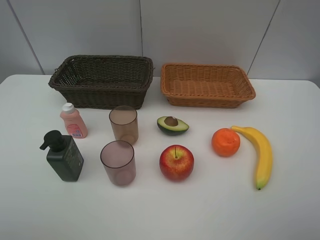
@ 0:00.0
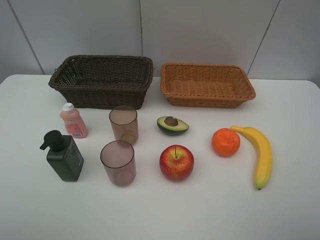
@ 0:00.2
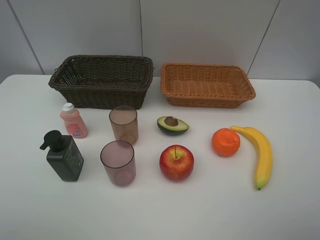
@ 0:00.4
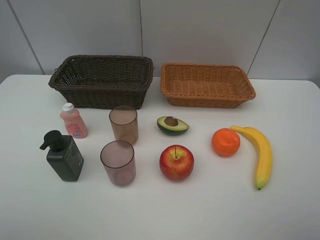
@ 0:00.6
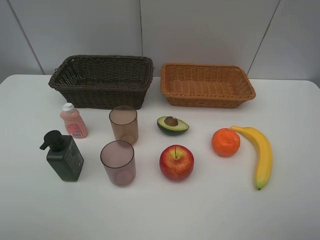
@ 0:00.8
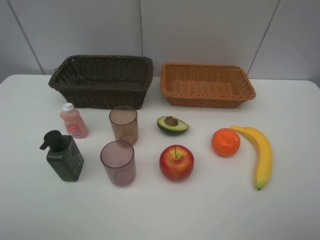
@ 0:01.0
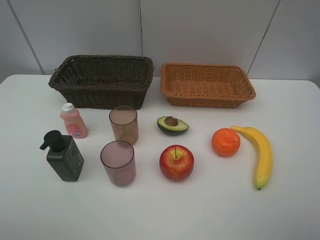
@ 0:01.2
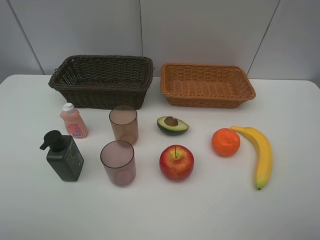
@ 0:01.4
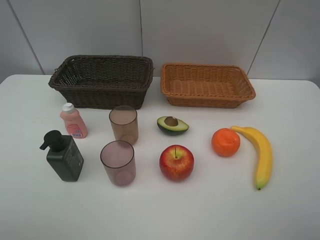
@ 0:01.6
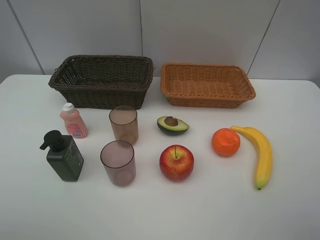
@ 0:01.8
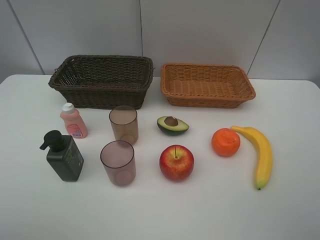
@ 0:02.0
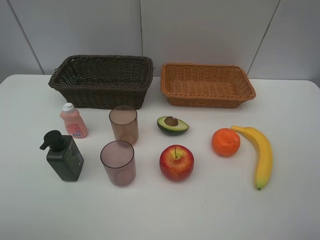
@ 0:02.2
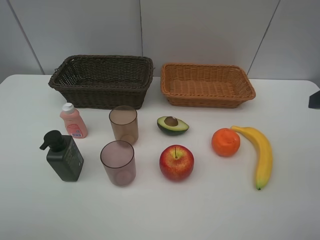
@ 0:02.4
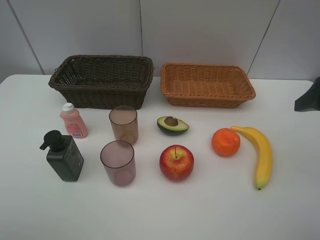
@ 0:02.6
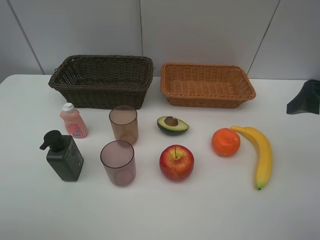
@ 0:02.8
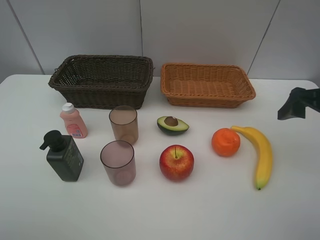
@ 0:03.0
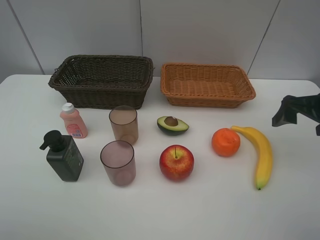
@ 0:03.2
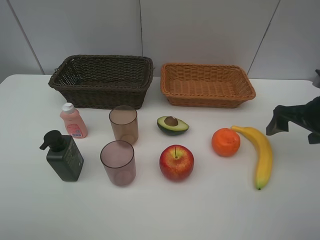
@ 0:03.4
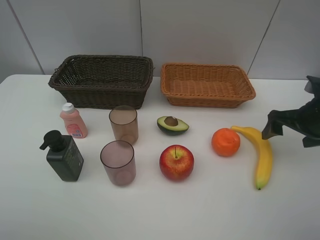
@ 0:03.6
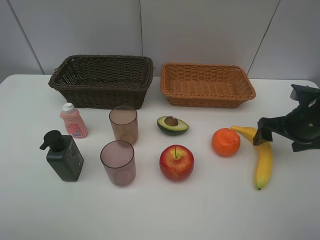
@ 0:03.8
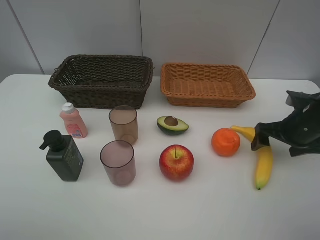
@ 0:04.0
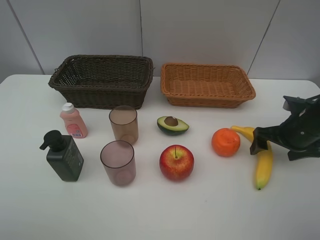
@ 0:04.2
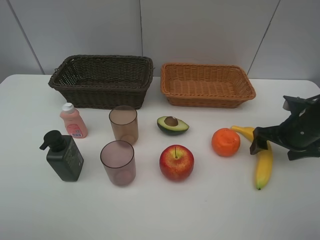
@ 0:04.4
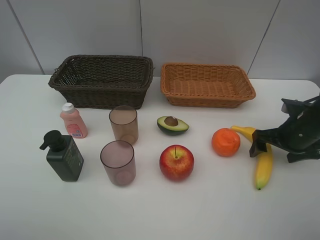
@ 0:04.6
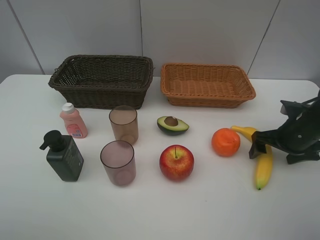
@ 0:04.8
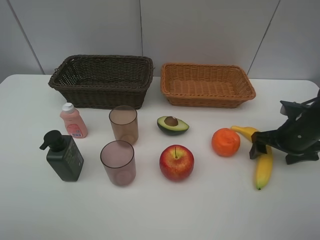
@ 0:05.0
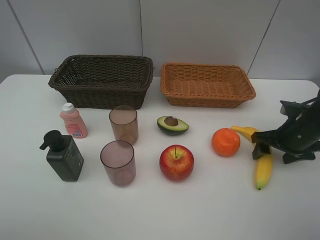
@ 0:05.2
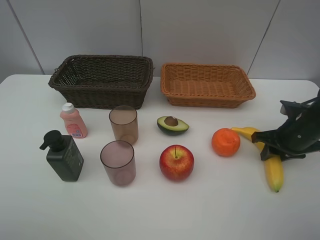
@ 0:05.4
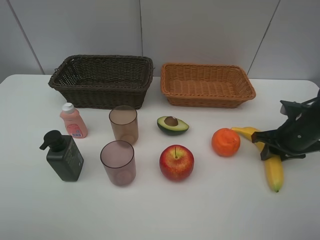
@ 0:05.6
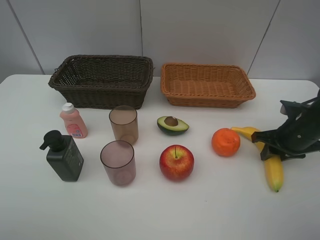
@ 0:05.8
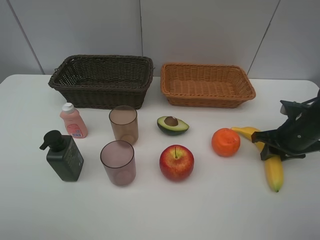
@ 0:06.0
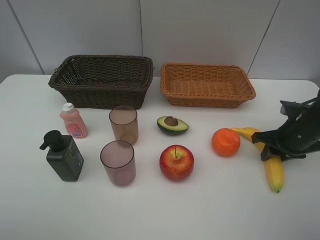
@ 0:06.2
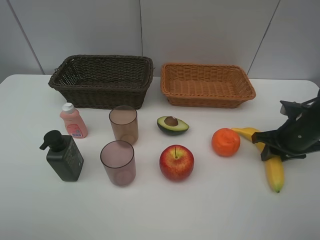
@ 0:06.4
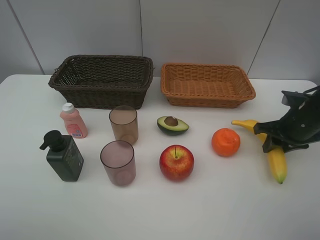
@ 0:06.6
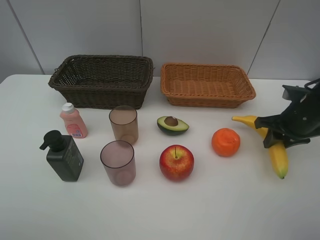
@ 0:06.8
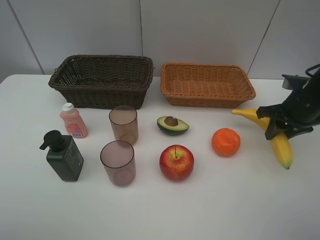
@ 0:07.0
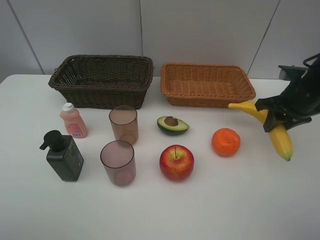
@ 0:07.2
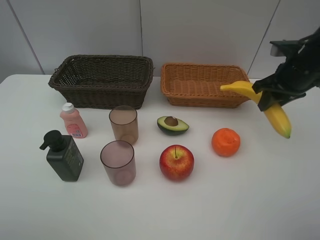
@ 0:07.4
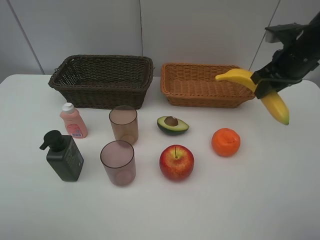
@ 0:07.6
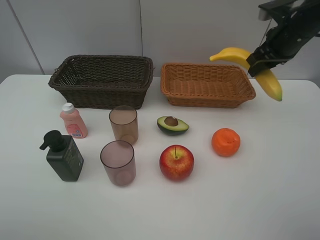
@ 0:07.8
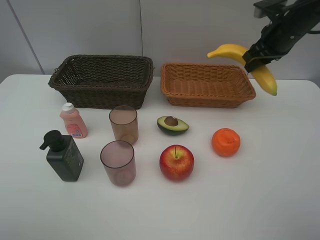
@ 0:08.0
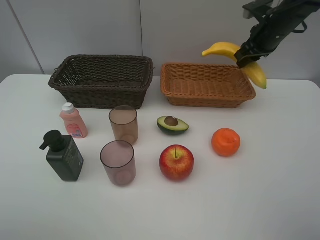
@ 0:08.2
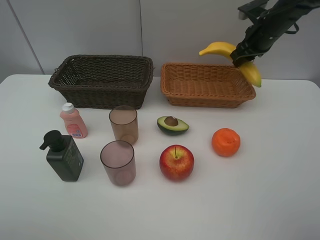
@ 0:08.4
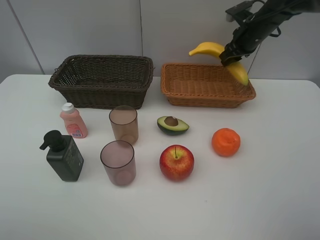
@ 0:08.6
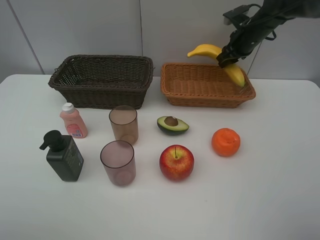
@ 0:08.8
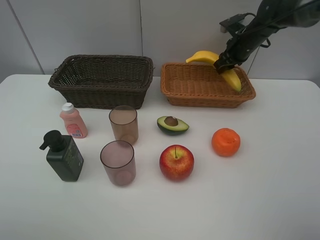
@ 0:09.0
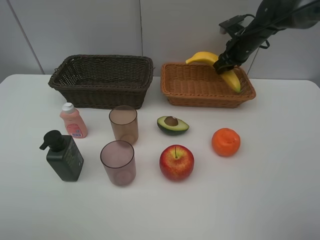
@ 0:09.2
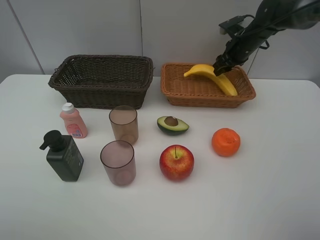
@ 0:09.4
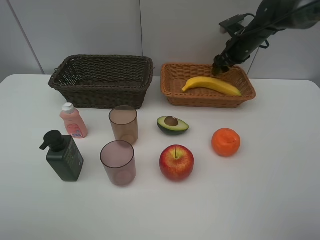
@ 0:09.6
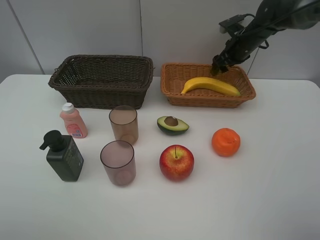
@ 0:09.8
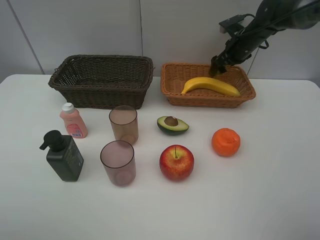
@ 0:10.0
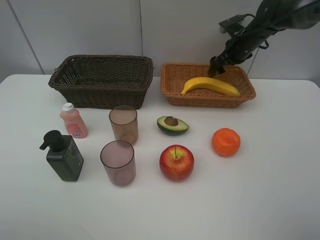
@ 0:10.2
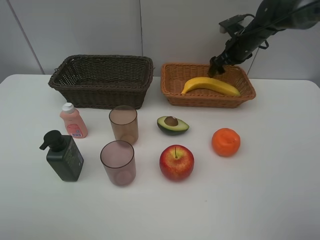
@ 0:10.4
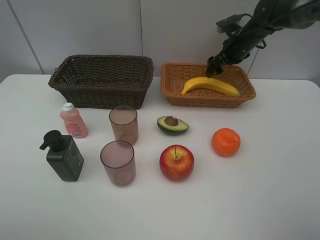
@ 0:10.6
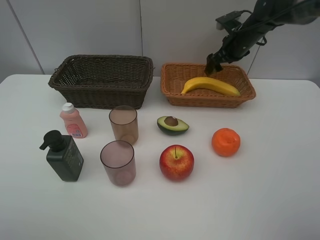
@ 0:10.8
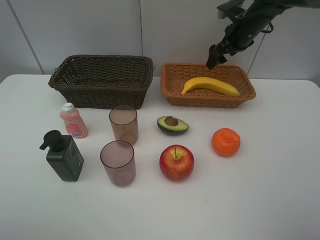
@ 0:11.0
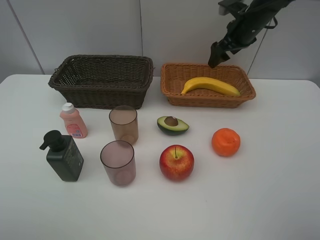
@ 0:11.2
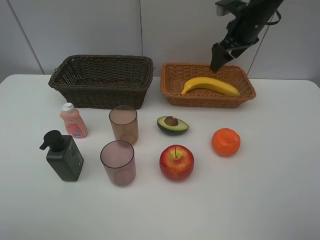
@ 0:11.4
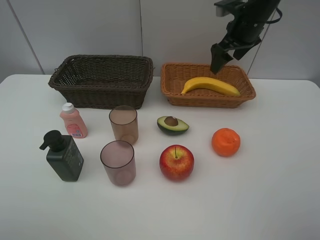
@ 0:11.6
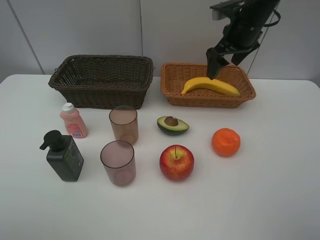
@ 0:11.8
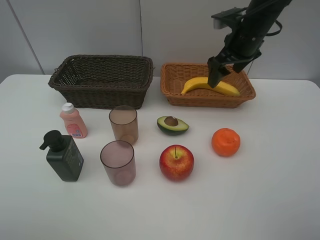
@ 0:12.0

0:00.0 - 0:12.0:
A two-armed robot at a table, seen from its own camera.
Task of the whole recording: Place multiple objects separately in different baskets.
Step, 0:00.0 - 0:06.6: Pick up banana with right gripper.
Step, 0:06.8 - 0:09.8: Place the banana in the light basket with right gripper.
0:01.6 - 0:03.0: The right gripper heads forward, covering some 20 cm.
0:03.0 - 0:04.4: The right gripper moves downward, approximately 10 cm.
0:04.4 - 0:06.0: The right gripper closes up.
0:06.0 - 0:07.6: The right gripper shifts approximately 15 cm upward and forward.
0:07.6 - 0:09.0: The right gripper moves forward, approximately 15 cm.
0:09.0 - 0:10.4: The right gripper opens its fingers.
0:10.4 - 0:12.0: The right gripper shifts about 10 cm backward and upward.

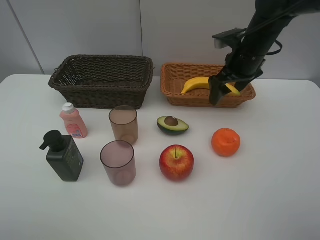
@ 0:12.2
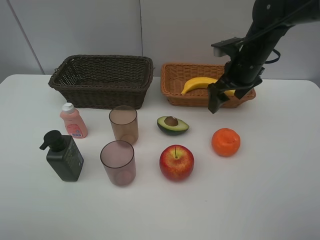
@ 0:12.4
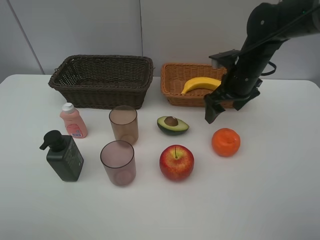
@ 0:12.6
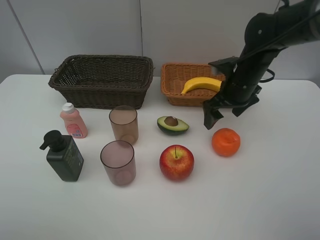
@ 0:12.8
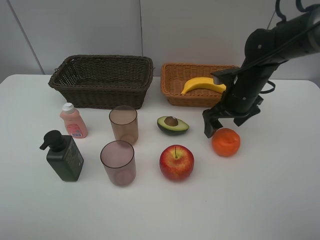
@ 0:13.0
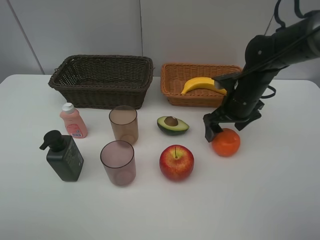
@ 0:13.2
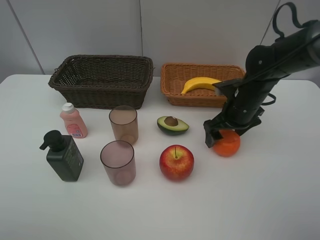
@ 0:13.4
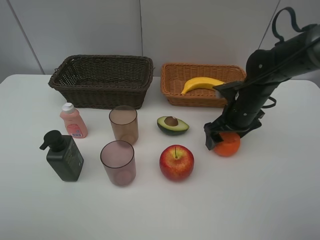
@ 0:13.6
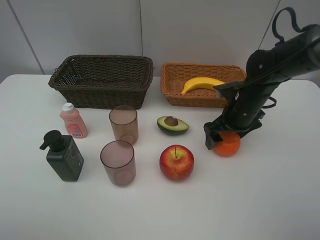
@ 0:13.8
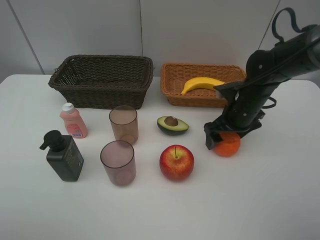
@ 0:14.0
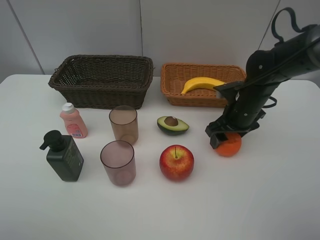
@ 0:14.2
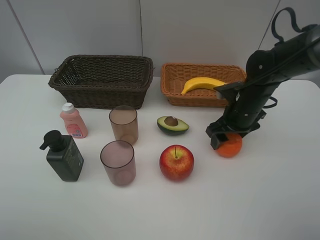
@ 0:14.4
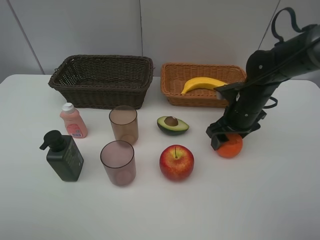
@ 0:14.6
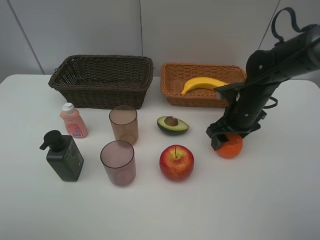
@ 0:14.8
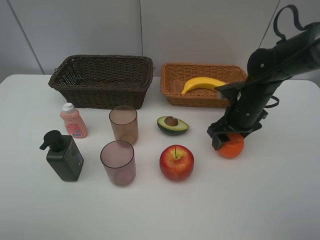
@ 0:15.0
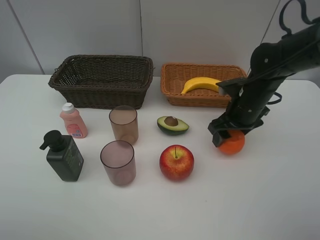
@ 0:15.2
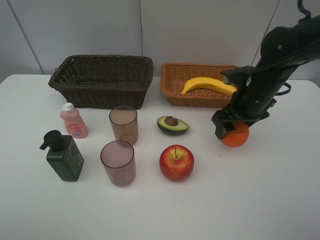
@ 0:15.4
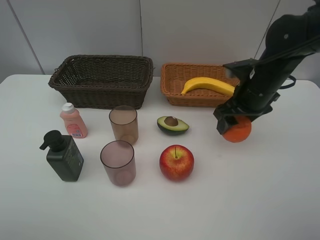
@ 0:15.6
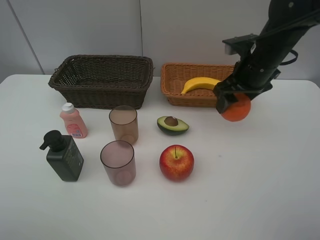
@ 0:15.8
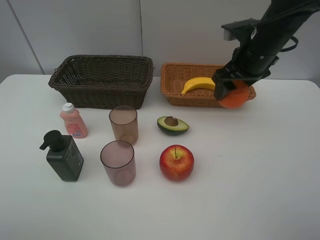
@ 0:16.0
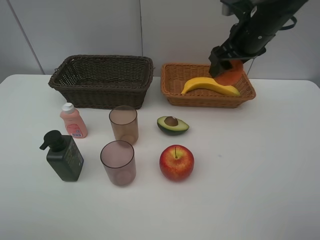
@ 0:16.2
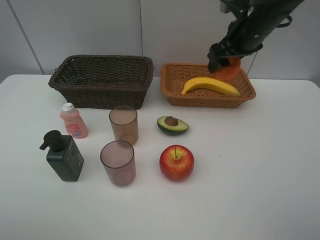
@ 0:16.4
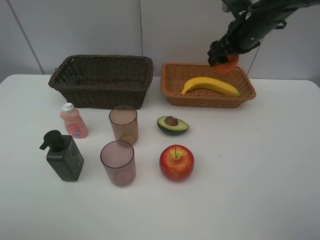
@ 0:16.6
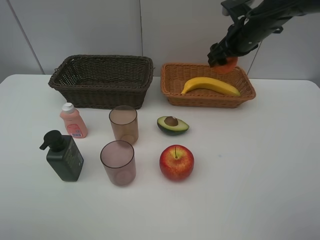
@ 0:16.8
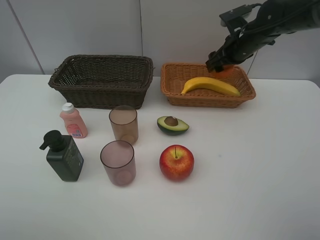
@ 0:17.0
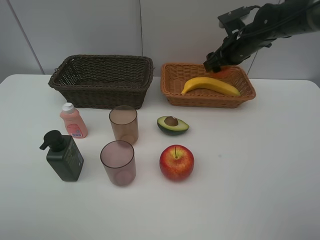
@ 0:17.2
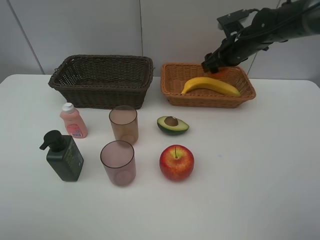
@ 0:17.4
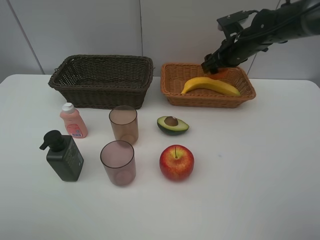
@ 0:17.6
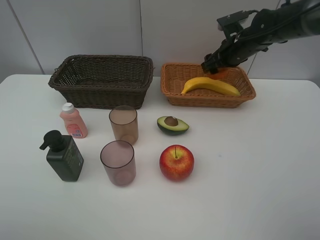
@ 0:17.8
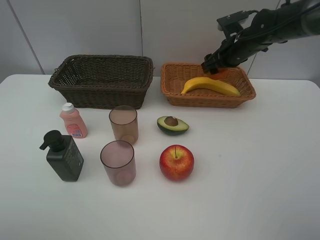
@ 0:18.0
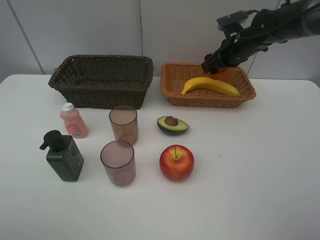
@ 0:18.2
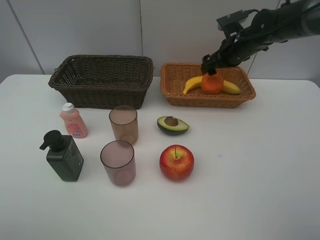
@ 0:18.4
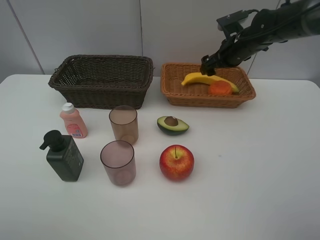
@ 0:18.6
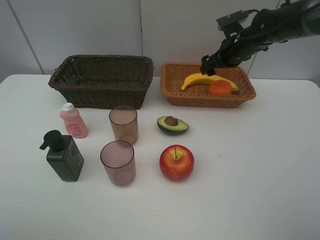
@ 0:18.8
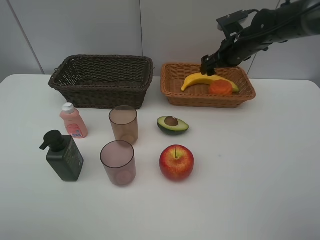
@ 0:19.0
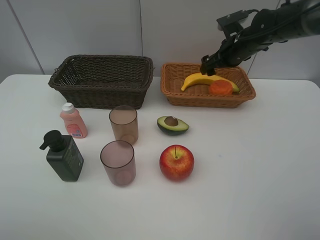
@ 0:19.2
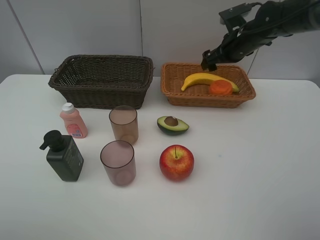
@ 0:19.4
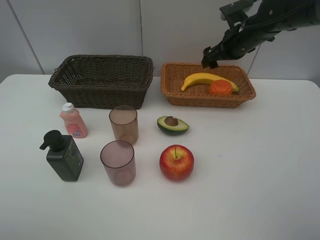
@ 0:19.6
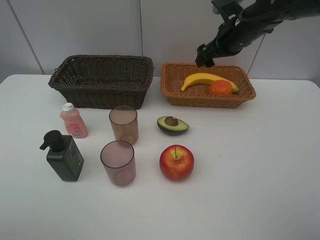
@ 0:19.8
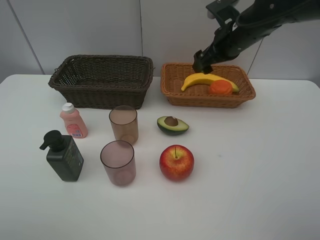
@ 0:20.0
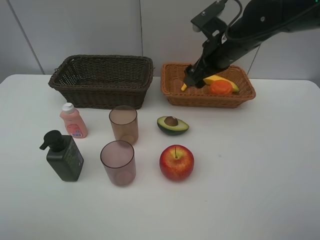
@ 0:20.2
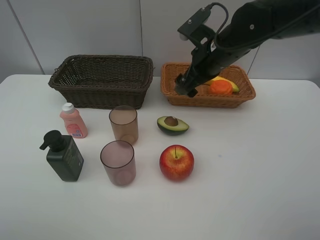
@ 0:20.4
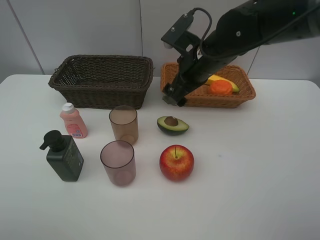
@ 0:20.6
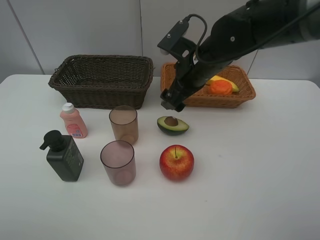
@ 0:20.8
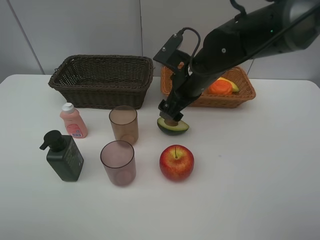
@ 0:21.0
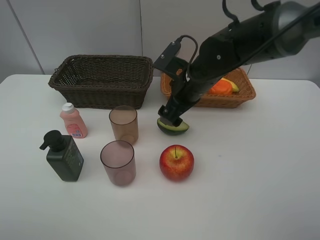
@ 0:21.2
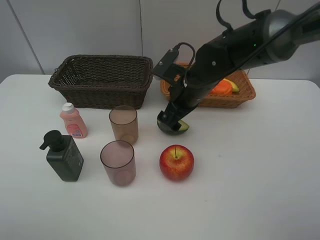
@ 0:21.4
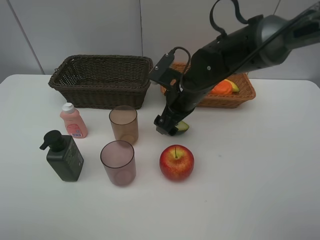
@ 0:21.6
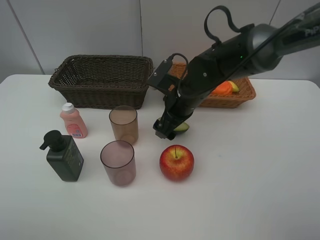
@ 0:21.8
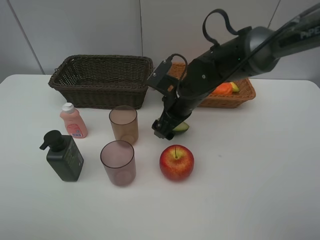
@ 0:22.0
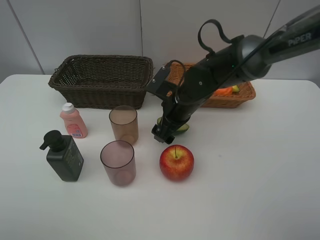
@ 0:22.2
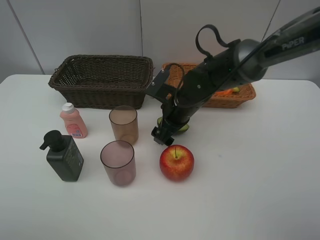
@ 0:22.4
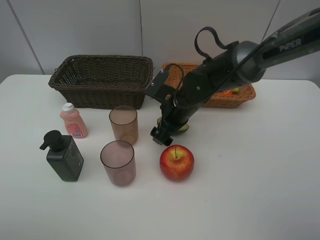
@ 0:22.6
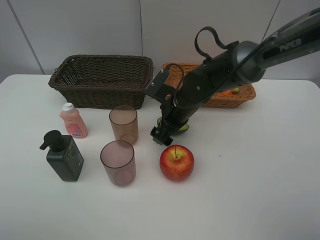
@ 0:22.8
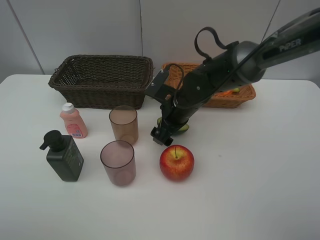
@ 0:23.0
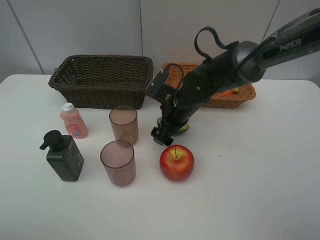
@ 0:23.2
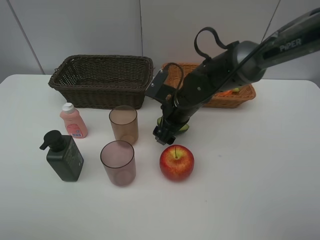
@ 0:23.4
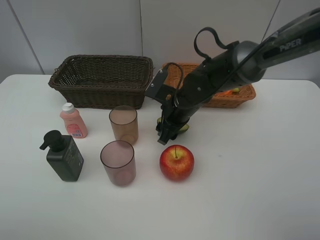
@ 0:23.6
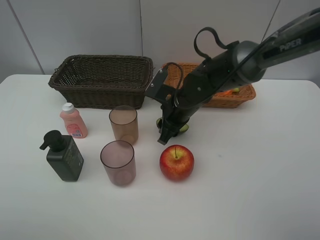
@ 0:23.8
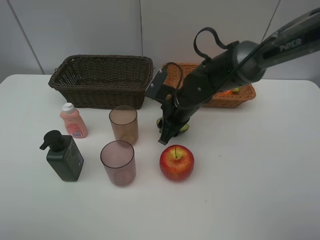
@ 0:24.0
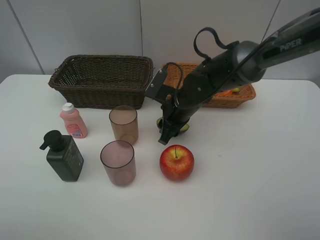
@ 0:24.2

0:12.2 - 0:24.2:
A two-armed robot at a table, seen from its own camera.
Task of the whole recording: Place multiple objects separately in different baskets.
Step, 0:12.2 - 0:15.2: Pick up the orange with right gripper.
Step, 0:15.4 - 0:18.8: Place the orange in the light basket with right gripper.
0:12.2 - 0:13.8: The right gripper is displaced downward and backward by some 10 cm.
0:13.8 - 0:15.2: The right gripper closes.
0:15.2 - 0:16.6: The right gripper heads upward and forward, covering about 15 cm.
0:16.6 - 0:18.2: The right gripper shifts approximately 5 cm downward.
0:18.2 - 0:19.8: The right gripper changes place by some 5 cm.
0:19.8 - 0:21.2: The right gripper is displaced to the left, backward and downward by about 15 cm.
0:21.2 - 0:22.6: The right gripper goes about 5 cm downward.
